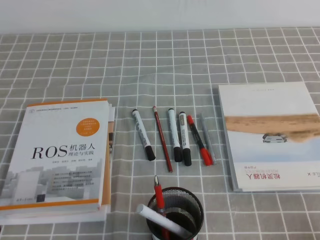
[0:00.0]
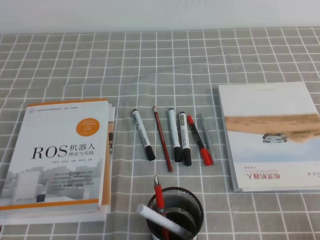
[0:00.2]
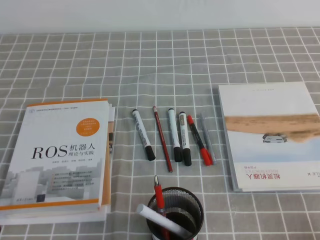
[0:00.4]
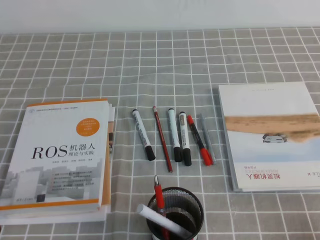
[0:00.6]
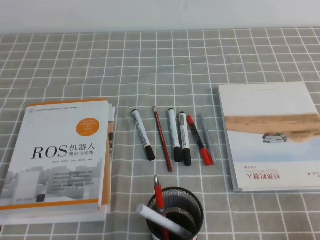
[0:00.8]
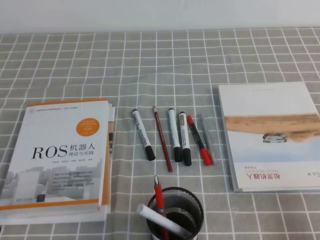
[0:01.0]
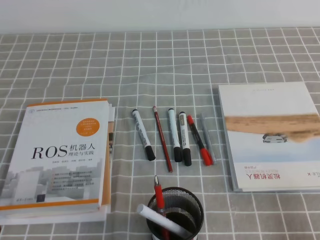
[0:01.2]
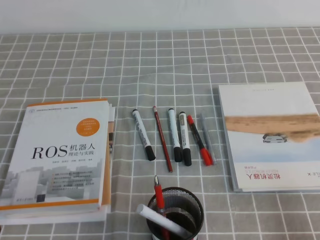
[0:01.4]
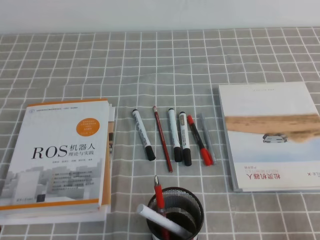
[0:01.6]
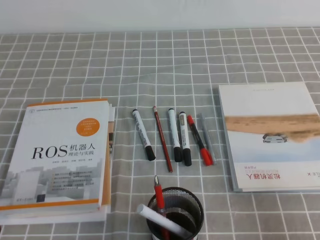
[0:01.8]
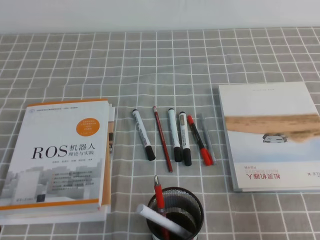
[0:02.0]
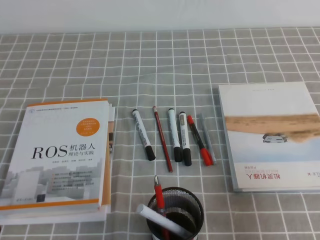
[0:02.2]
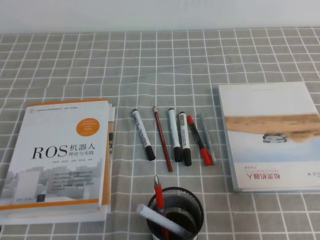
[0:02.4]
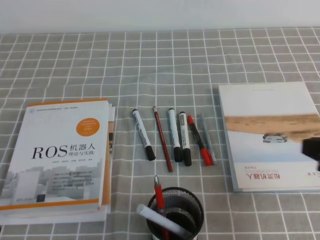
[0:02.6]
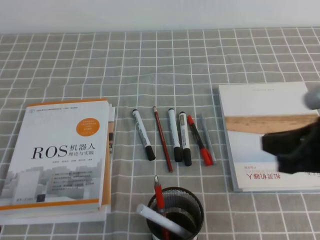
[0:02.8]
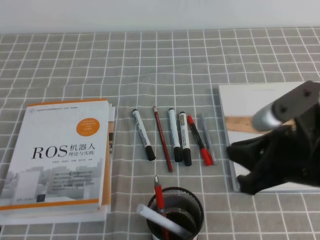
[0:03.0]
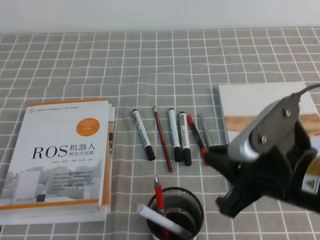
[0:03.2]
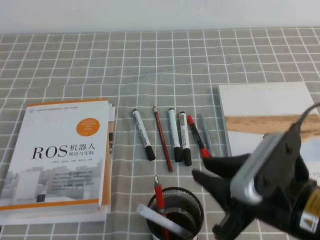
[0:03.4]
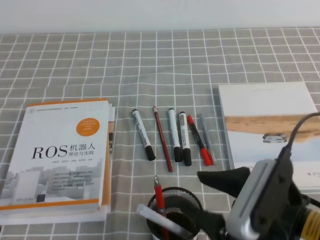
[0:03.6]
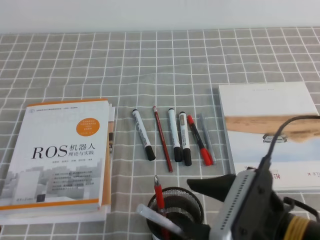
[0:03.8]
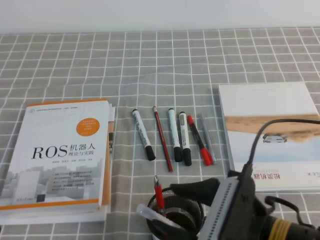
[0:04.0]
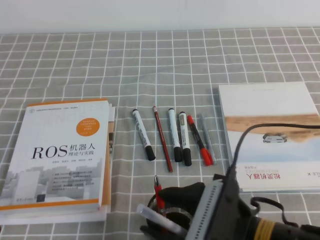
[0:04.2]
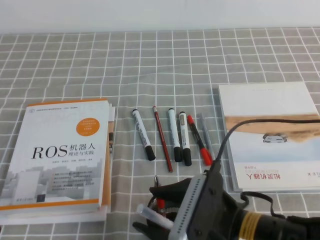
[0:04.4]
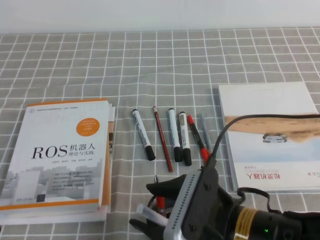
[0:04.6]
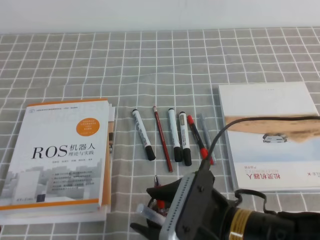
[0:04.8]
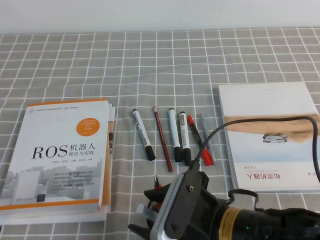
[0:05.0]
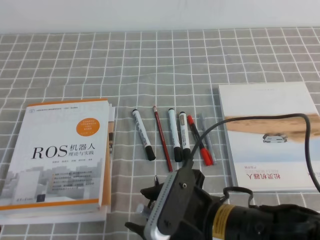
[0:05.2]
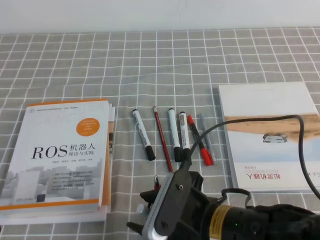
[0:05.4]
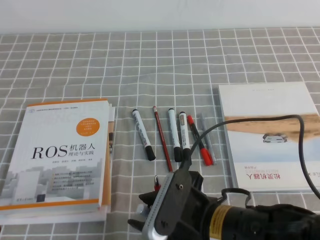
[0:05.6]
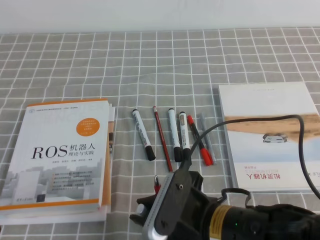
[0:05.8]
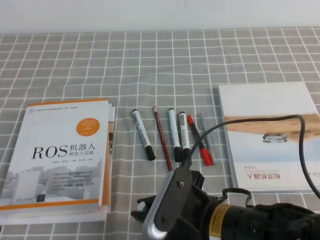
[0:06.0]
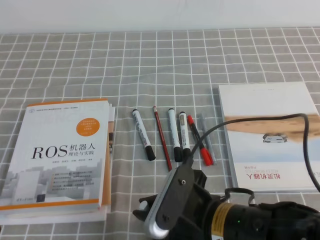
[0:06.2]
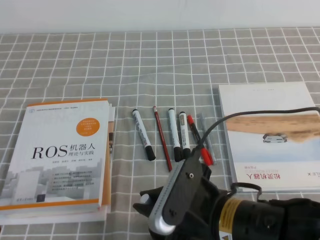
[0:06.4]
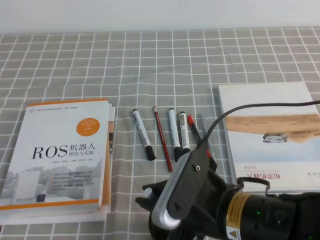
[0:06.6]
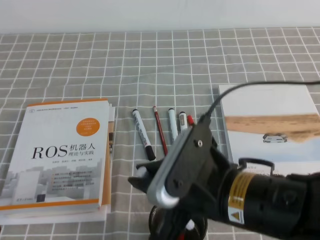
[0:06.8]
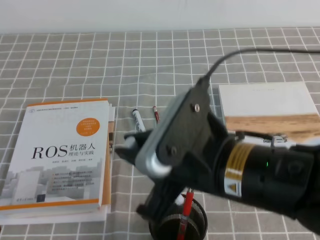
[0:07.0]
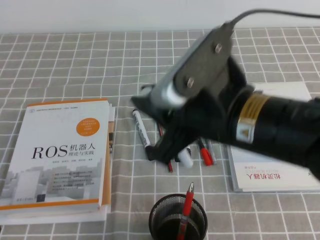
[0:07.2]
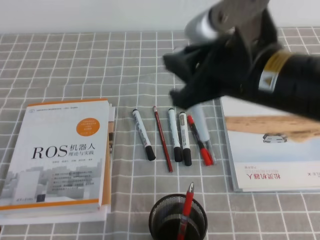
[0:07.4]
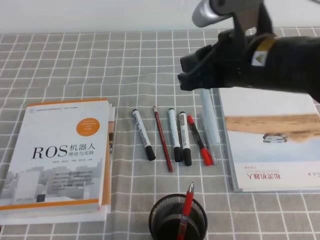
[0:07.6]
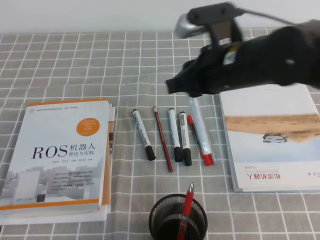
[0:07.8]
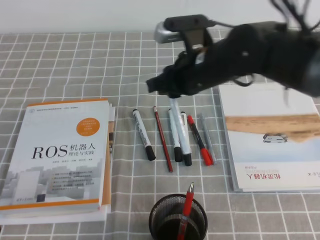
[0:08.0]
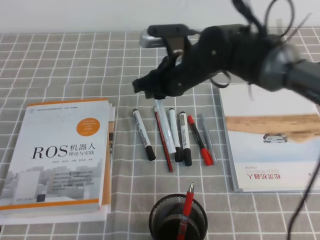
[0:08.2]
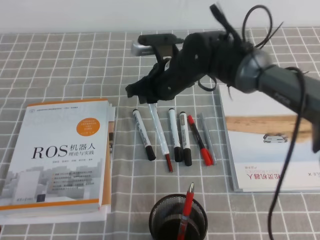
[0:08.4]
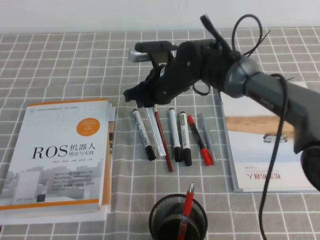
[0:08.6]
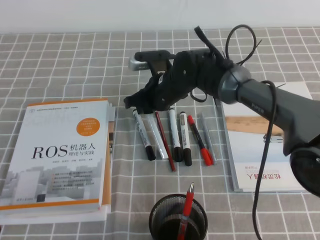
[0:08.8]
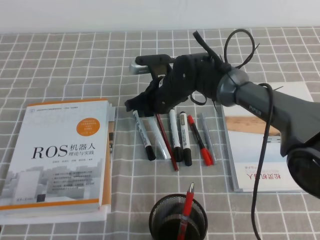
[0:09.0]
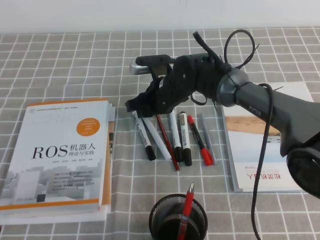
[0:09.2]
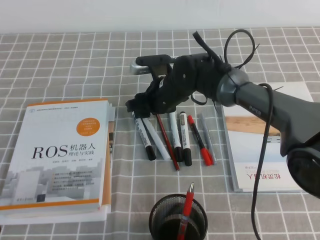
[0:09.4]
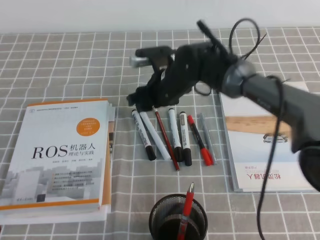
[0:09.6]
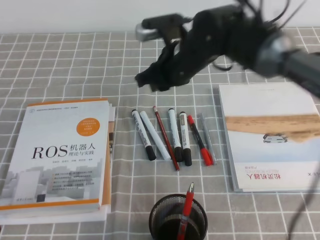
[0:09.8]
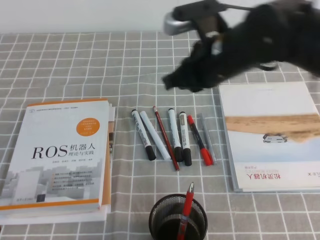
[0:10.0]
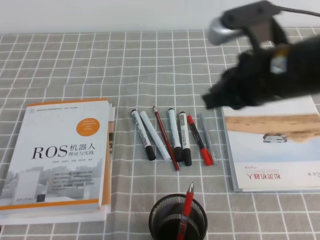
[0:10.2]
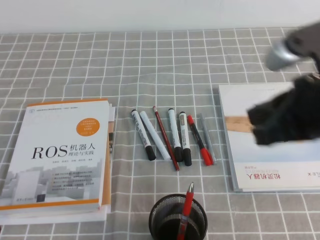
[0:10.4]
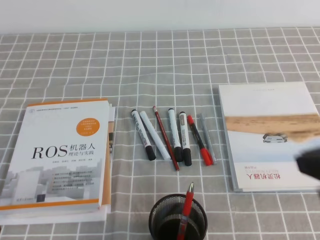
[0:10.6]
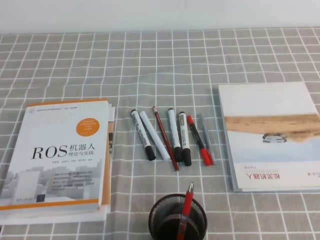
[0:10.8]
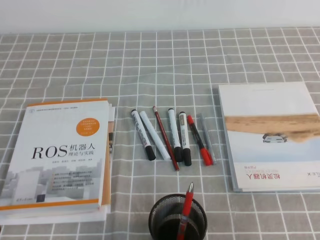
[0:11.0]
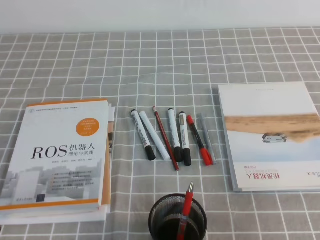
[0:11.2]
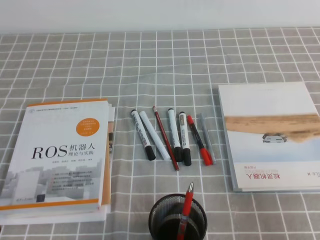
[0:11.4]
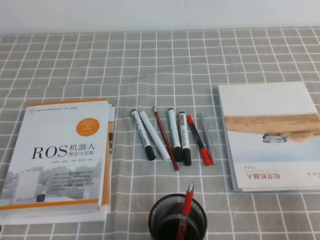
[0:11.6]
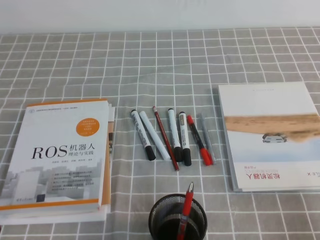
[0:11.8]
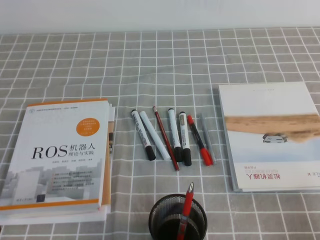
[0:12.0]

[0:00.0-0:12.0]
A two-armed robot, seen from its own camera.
0:01.6 to 0:03.0: The right gripper shifts about 20 cm to the left, forward and upward.
0:03.0 to 0:04.4: The right gripper shifts approximately 15 cm to the left, downward and backward, and opens its fingers.
0:04.4 to 0:06.0: The right gripper closes up.
0:06.0 to 0:07.6: The right gripper shifts approximately 20 cm upward and forward.
0:07.6 to 0:09.0: The right gripper moves downward, forward and to the left, approximately 25 cm.
0:09.0 to 0:10.4: The right gripper is displaced backward, to the right and upward by some 35 cm, and opens, then closes once more.
0:10.4 to 0:12.0: The right gripper shifts some 25 cm downward, to the right and backward.

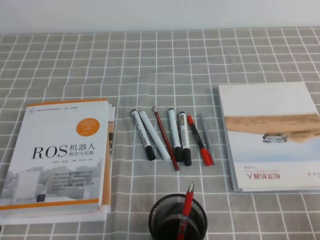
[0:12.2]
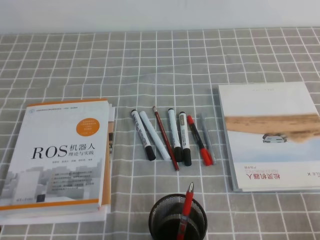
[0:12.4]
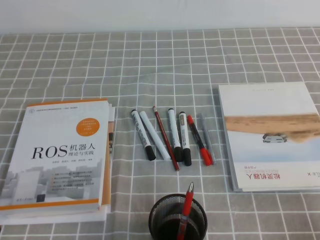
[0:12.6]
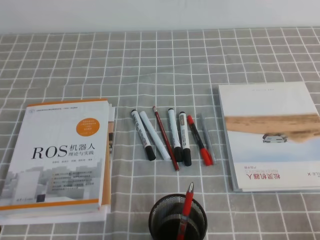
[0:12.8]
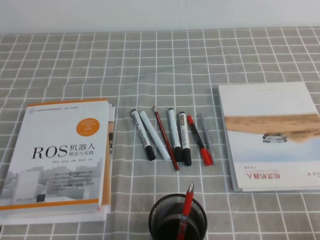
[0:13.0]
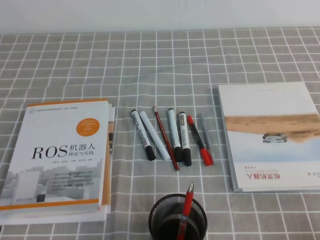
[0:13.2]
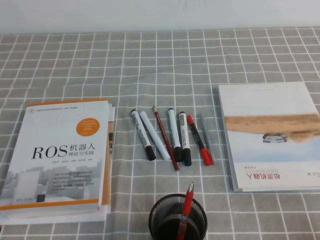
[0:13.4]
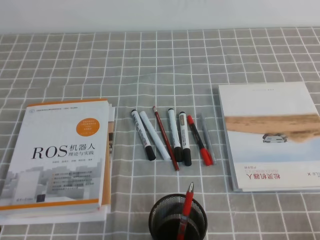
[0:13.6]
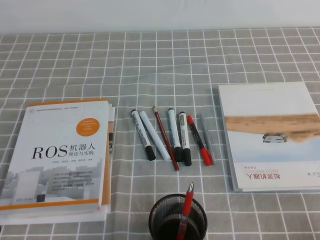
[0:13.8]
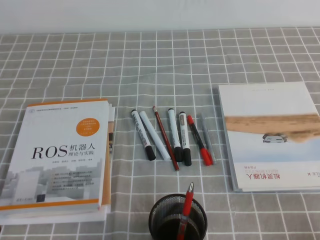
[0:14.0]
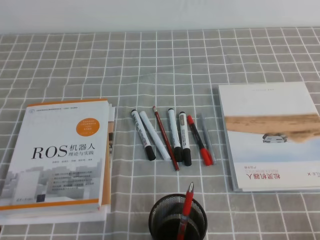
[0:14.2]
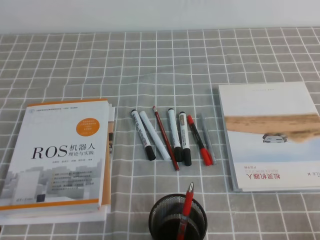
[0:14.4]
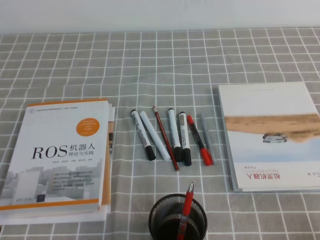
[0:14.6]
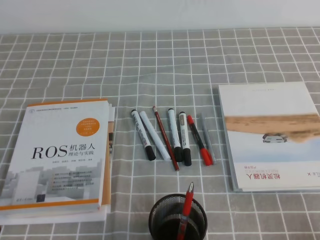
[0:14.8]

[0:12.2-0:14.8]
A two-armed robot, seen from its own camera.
0:13.4 to 0:14.8: Neither gripper changes place.

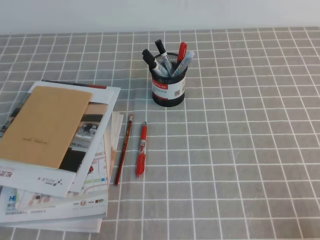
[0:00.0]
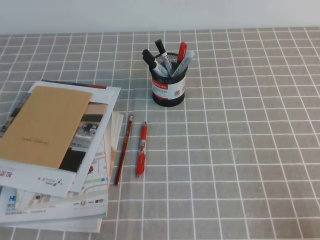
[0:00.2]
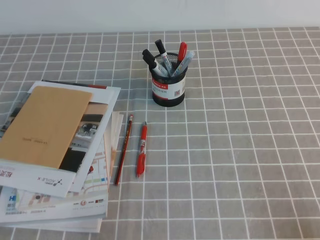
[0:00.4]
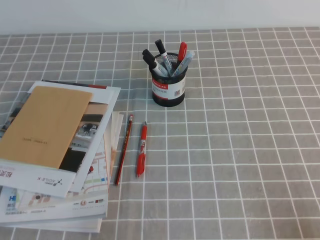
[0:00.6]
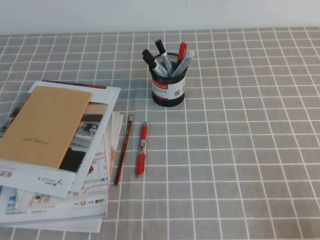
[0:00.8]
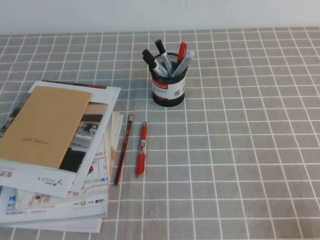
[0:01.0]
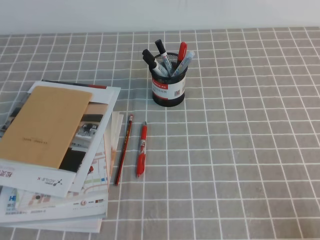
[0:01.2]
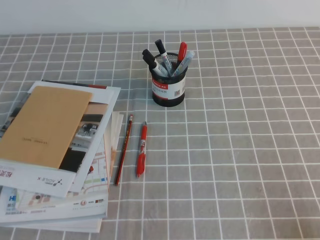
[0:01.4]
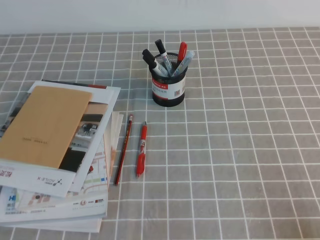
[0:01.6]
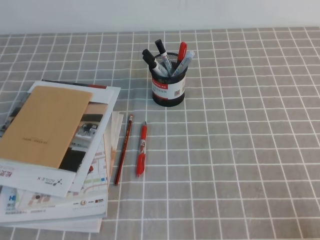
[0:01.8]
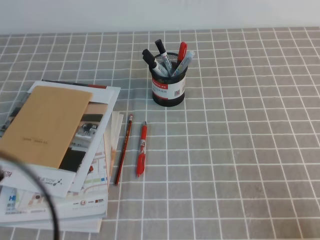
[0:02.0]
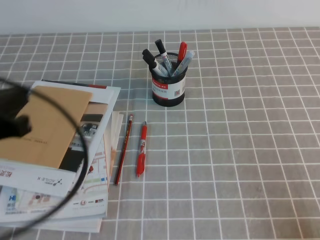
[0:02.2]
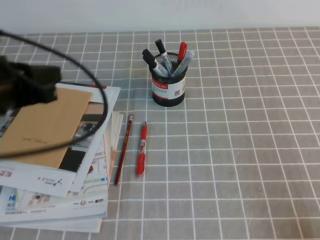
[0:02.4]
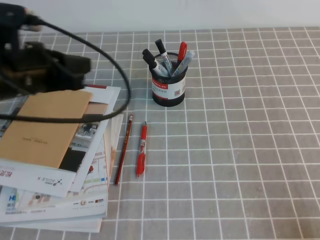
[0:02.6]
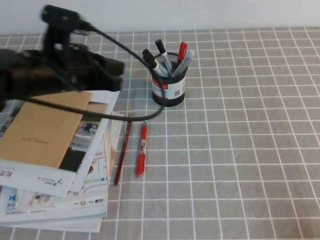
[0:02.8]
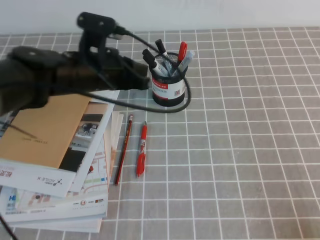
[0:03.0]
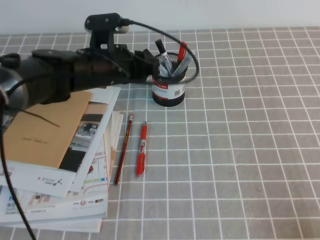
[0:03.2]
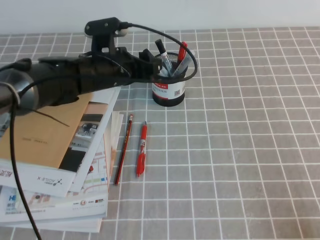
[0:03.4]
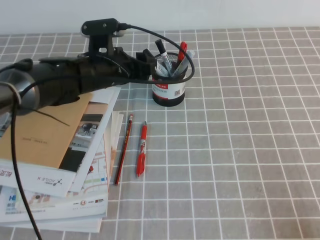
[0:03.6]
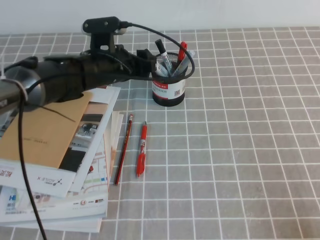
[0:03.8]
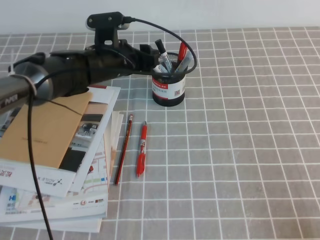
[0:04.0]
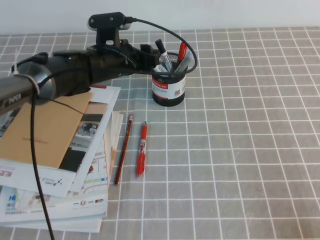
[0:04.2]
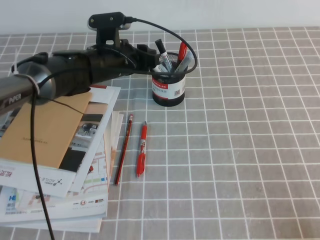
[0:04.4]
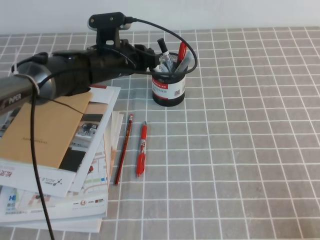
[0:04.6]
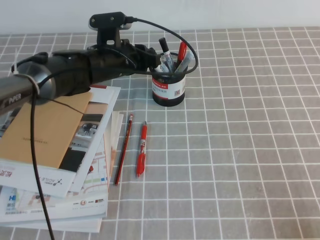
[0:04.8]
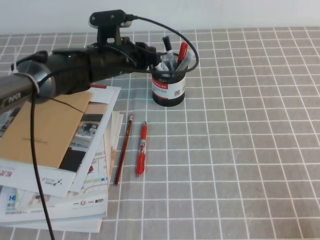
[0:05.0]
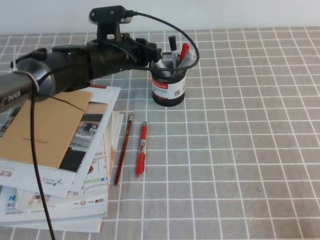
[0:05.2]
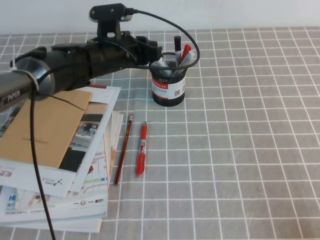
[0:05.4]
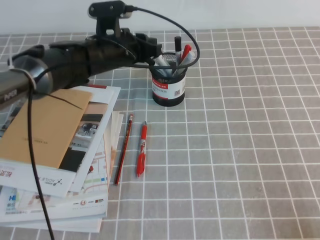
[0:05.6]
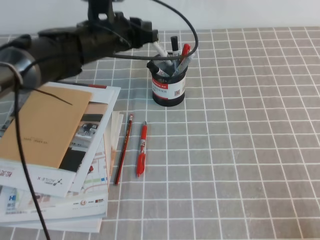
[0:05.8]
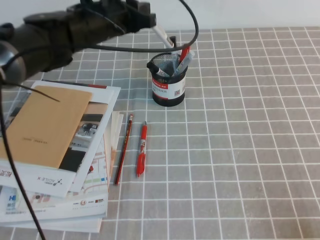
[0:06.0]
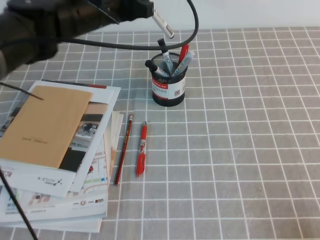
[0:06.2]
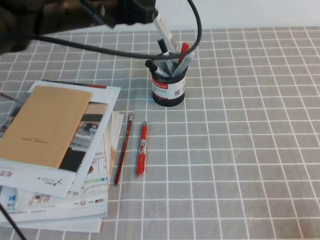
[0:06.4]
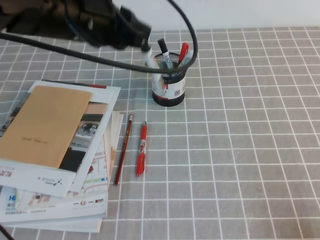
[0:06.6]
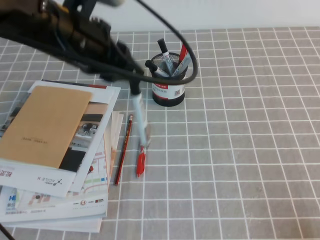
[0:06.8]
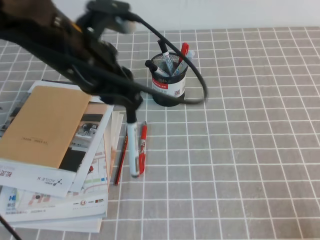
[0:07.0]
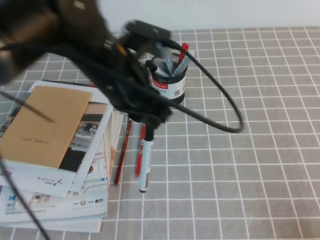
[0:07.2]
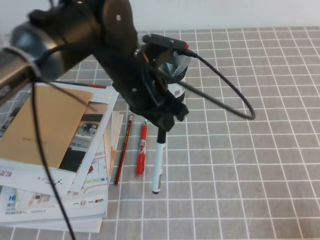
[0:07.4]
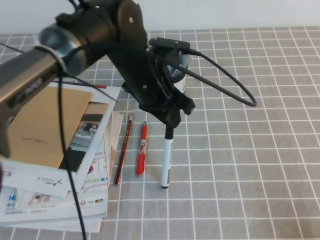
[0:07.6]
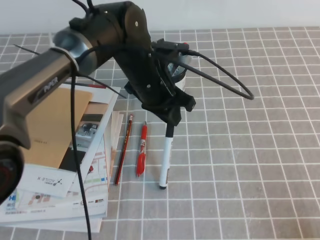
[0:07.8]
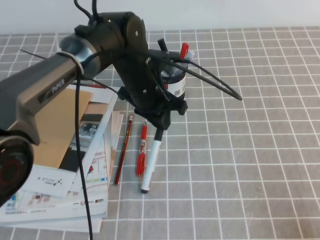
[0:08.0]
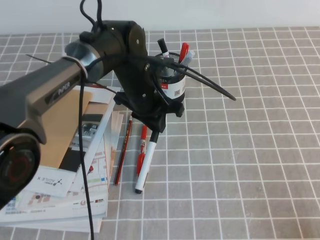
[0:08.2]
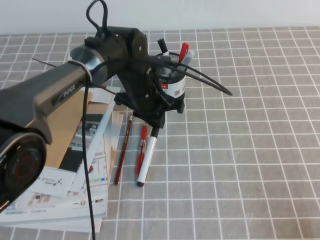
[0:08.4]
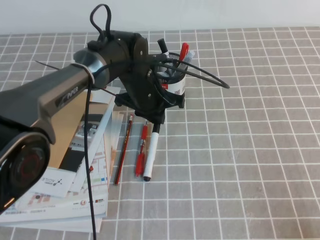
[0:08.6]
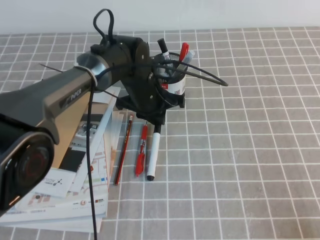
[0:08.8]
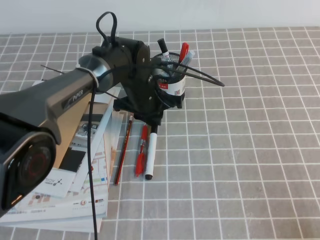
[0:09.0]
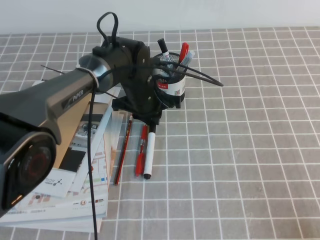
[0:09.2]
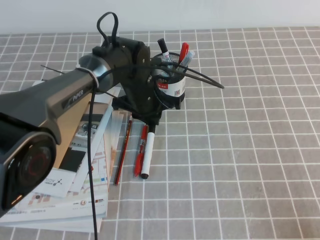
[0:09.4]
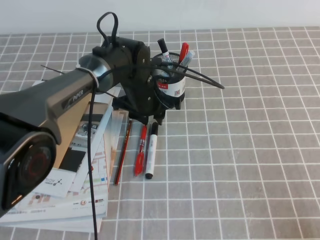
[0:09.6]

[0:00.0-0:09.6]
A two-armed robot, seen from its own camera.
0:01.6 to 0:03.2: The left gripper heads forward and to the right, covering approximately 35 cm, and opens up.
0:03.2 to 0:04.8: The left gripper goes roughly 5 cm forward, and opens, then closes once more.
0:04.8 to 0:06.4: The left gripper shifts approximately 15 cm upward and backward.
0:06.4 to 0:08.0: The left gripper heads downward and to the right, covering roughly 15 cm.
0:08.0 to 0:09.6: The left gripper goes some 5 cm downward.
